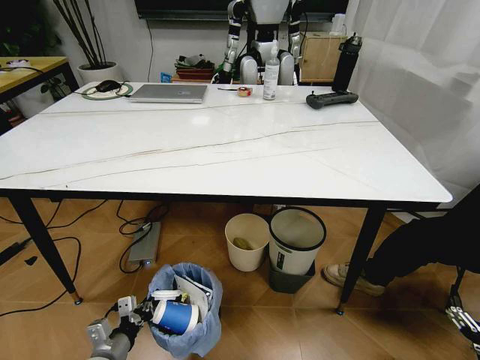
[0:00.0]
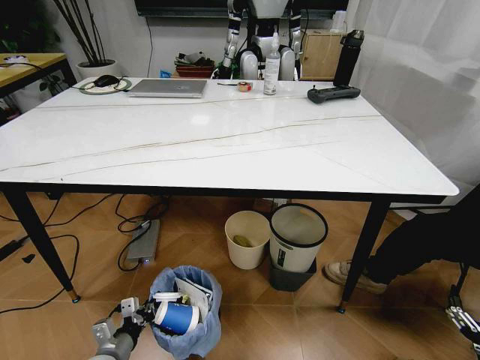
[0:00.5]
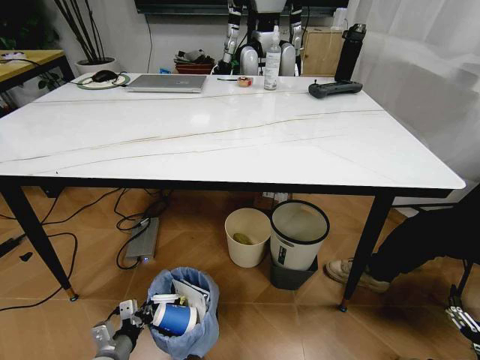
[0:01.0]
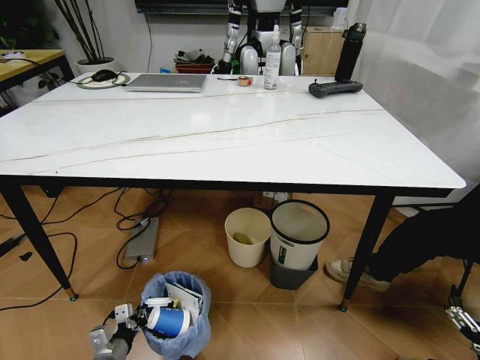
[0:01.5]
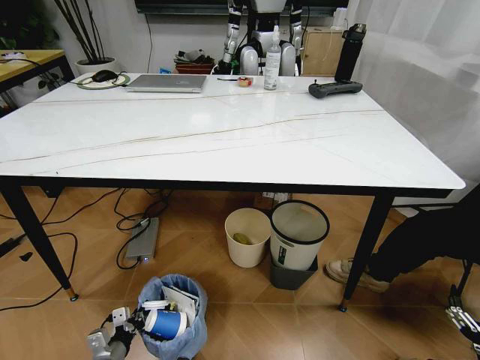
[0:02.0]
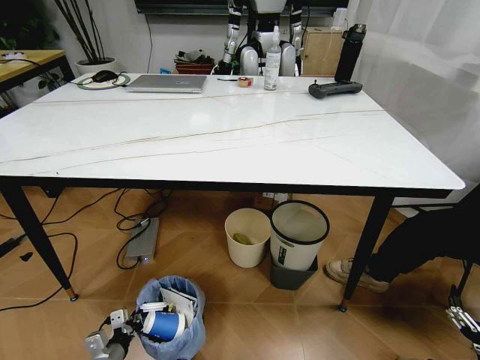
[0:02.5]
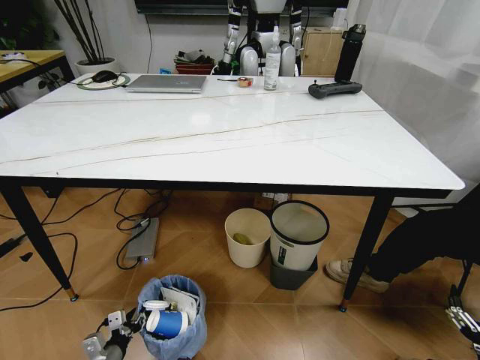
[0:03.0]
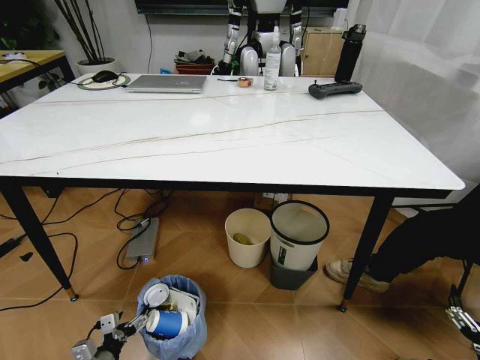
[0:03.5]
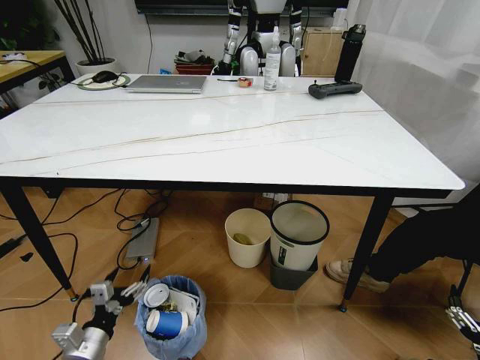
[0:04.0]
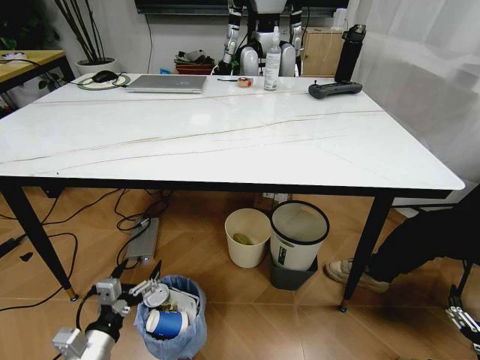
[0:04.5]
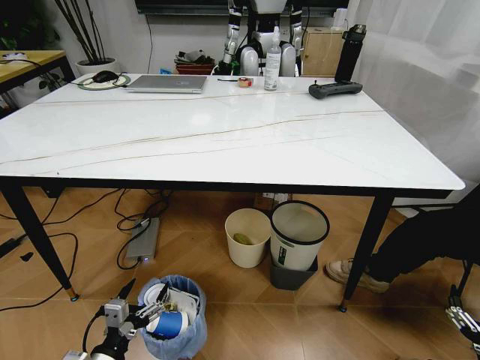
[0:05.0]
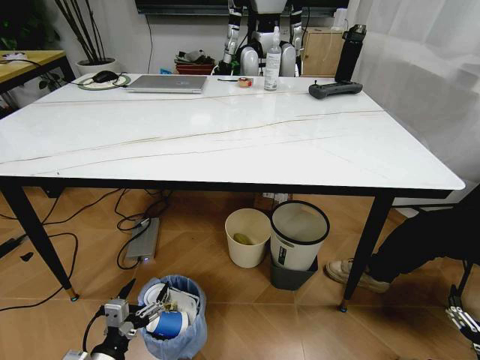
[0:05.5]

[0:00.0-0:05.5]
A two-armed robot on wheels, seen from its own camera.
Task of the whole recording: Pick up the trash bin and place the trash from the table into it.
0:00.0 to 0:02.0: The left gripper travels downward by some 10 cm.
0:02.0 to 0:03.5: The left gripper opens its fingers.
0:03.5 to 0:05.5: The left gripper heads upward and to the right, covering some 15 cm.

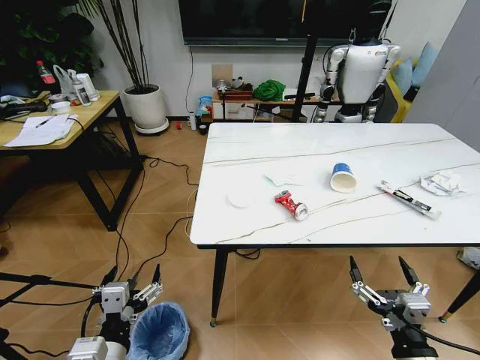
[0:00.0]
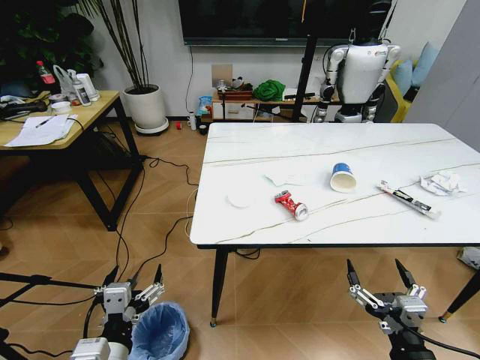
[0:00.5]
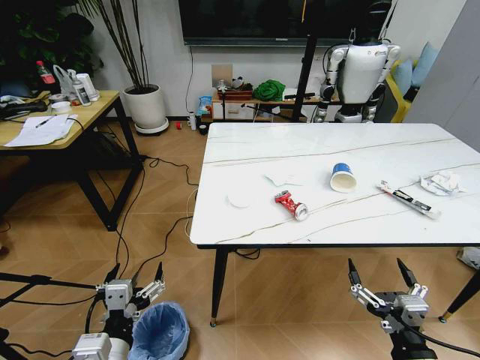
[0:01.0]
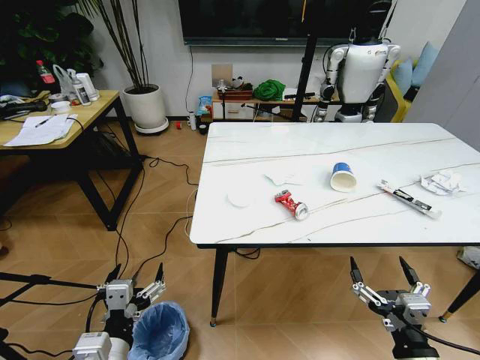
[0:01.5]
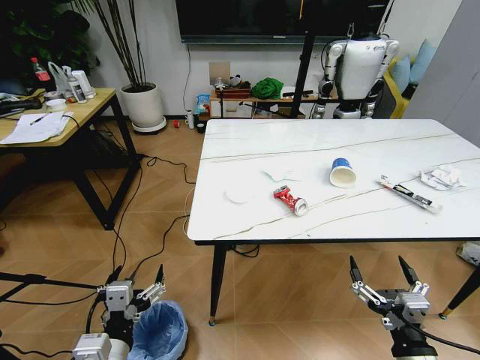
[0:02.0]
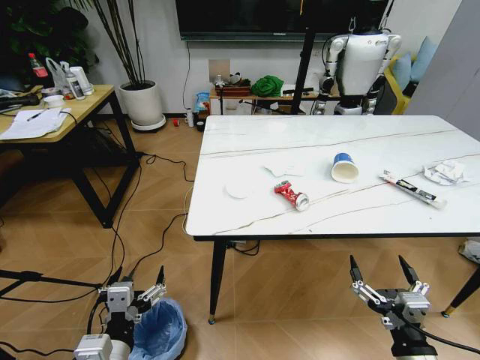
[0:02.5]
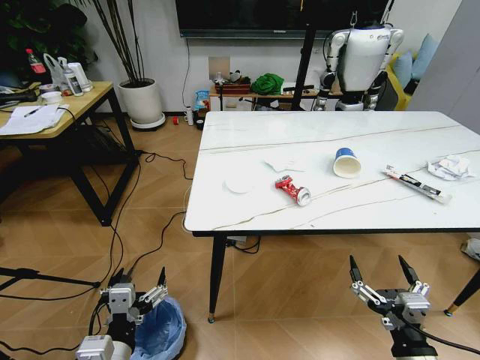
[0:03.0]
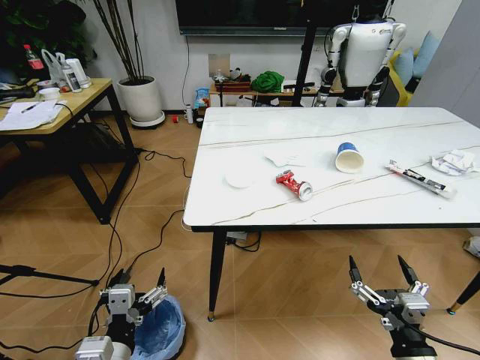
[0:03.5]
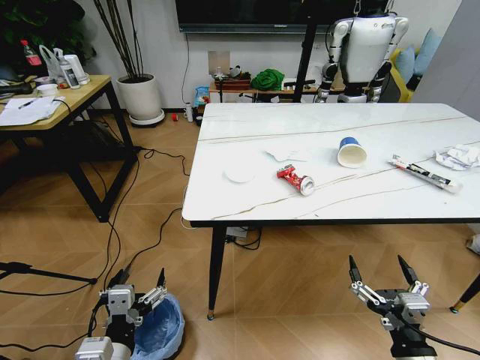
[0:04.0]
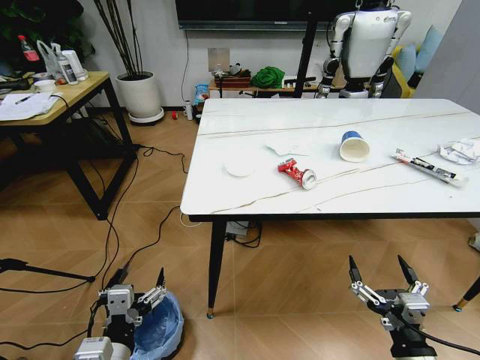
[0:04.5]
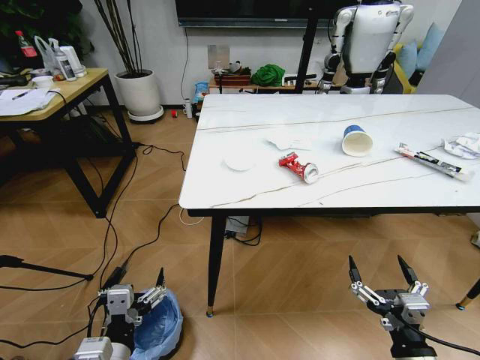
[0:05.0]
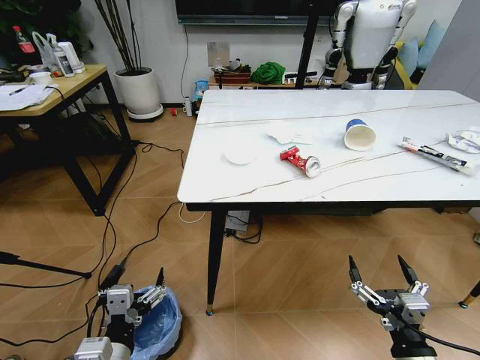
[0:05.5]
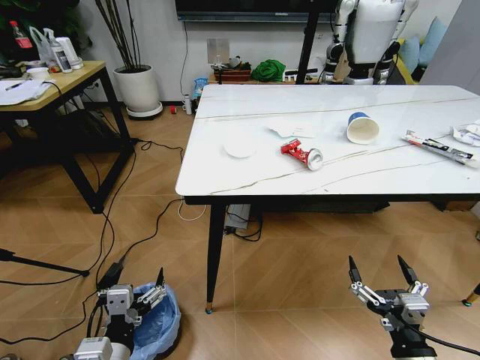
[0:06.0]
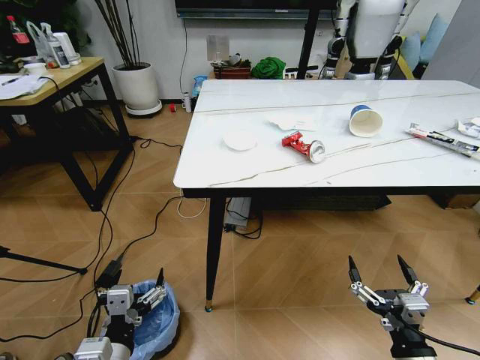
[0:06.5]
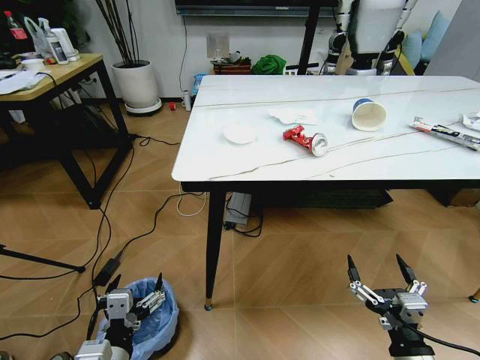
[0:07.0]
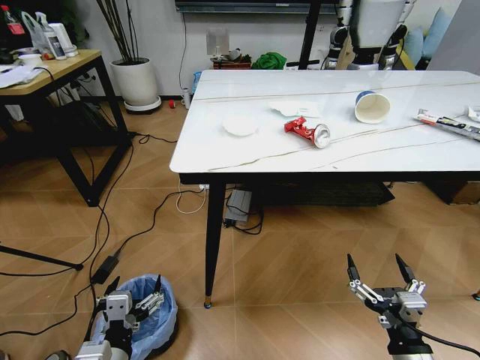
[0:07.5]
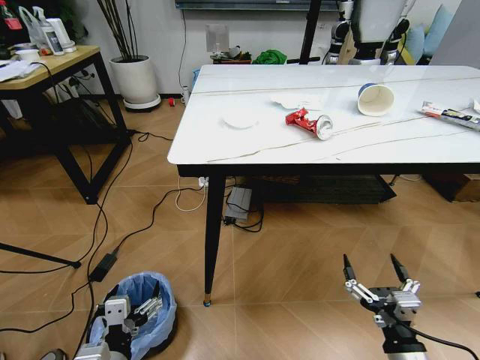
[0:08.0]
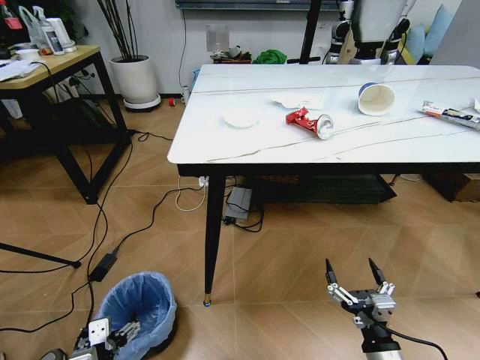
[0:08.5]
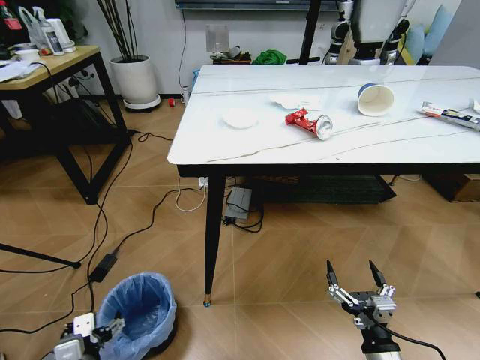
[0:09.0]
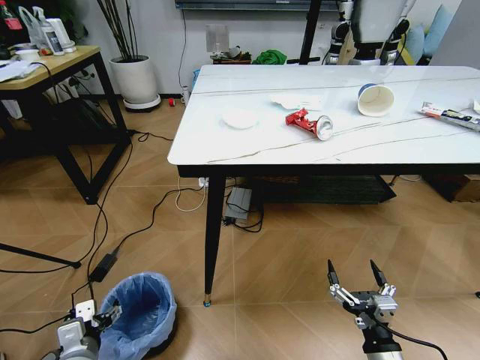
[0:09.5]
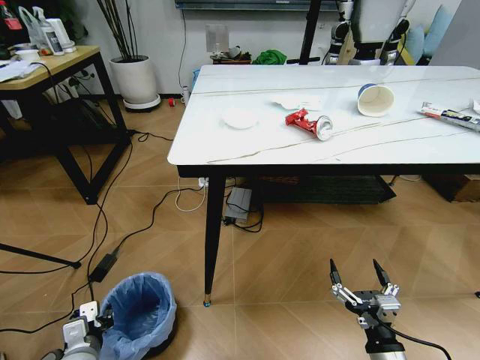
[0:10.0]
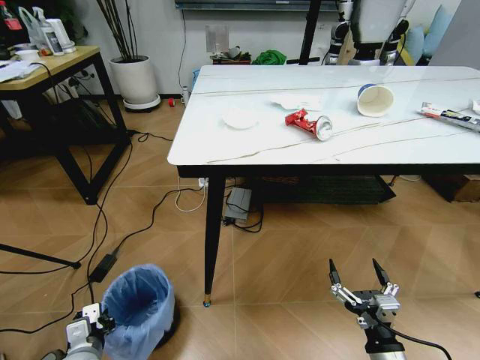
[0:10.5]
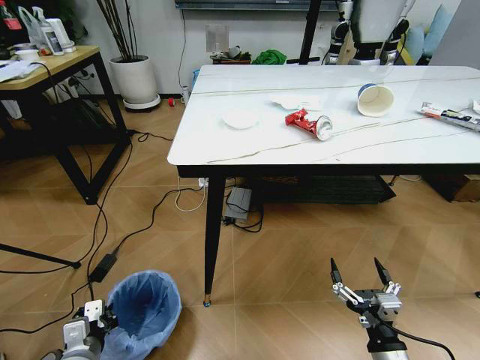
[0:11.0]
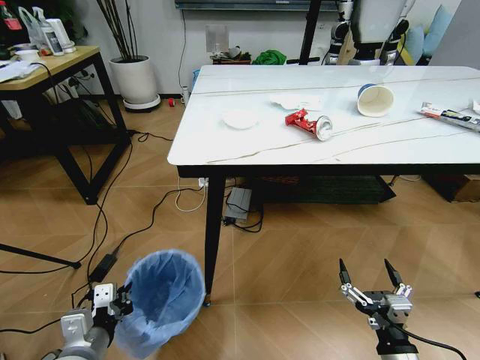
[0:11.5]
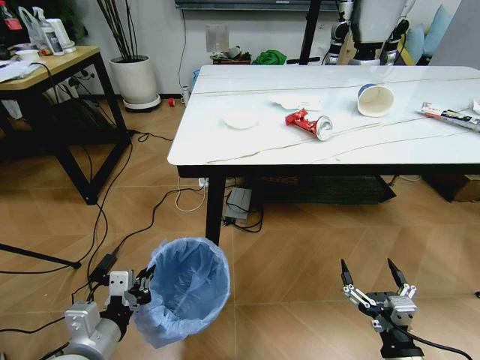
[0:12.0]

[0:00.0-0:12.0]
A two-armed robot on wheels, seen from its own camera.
Task of the whole recording: Pick up the trash bin and place the trash from the table into it.
0:08.0 to 0:10.0: The left gripper heads to the left, downward and forward, covering about 15 cm, and closes.
0:10.0 to 0:12.0: The left gripper moves upward and to the right, roughly 15 cm.

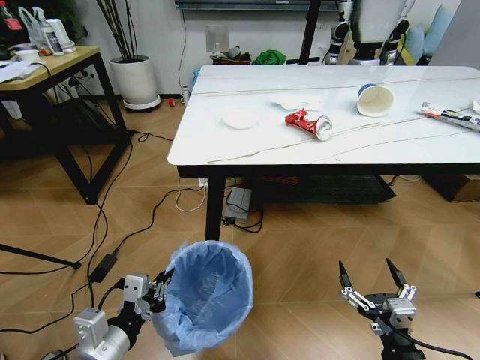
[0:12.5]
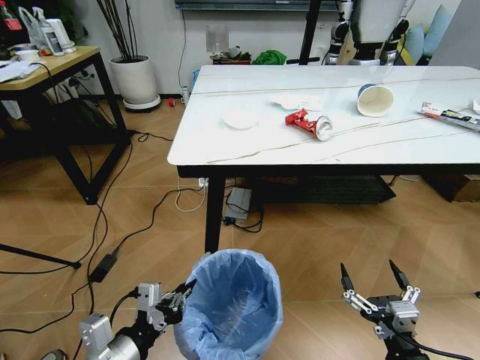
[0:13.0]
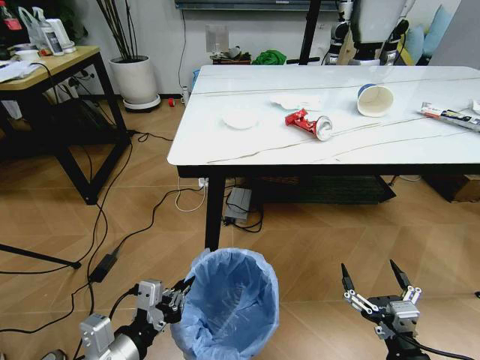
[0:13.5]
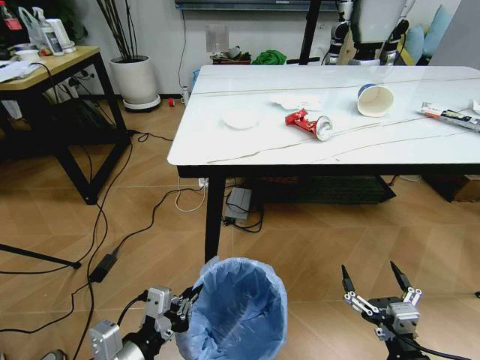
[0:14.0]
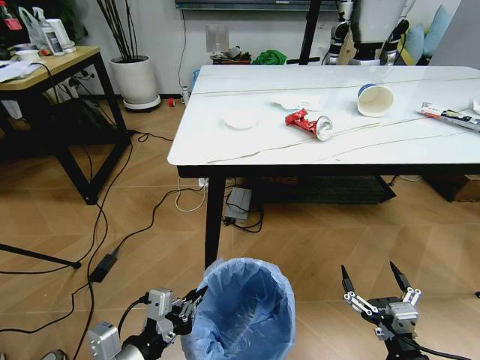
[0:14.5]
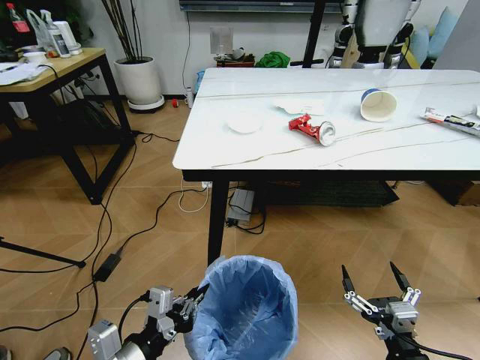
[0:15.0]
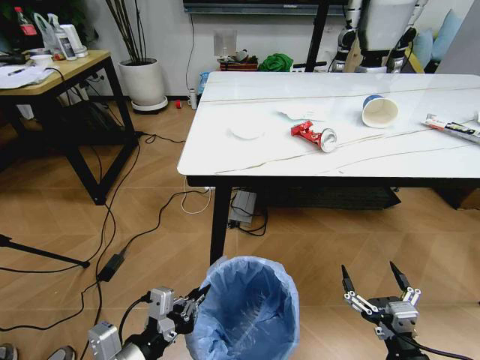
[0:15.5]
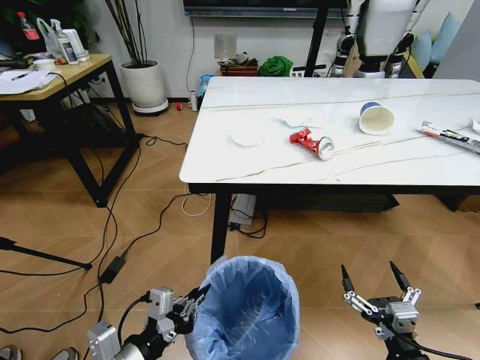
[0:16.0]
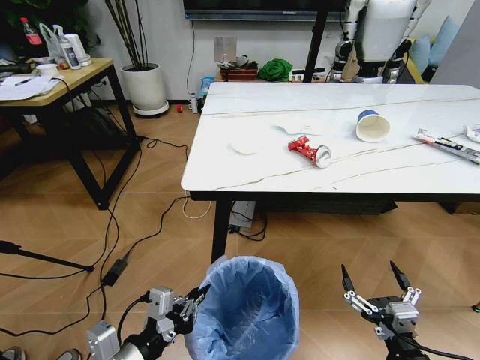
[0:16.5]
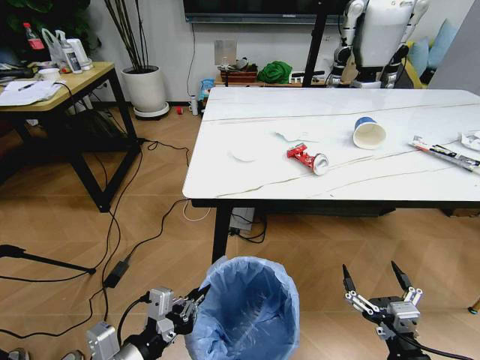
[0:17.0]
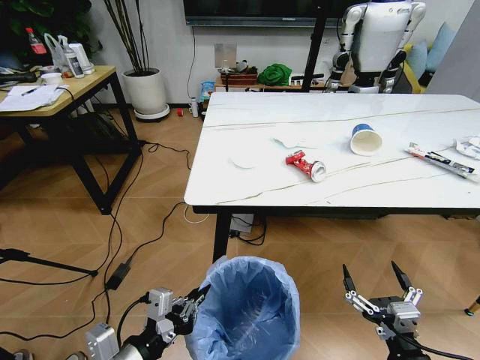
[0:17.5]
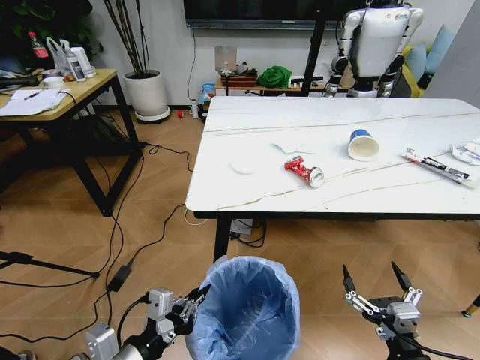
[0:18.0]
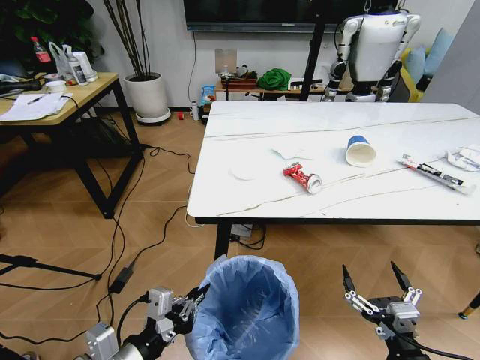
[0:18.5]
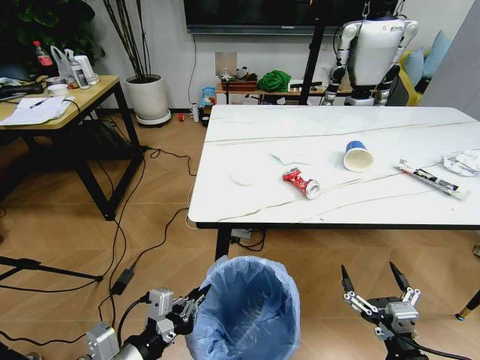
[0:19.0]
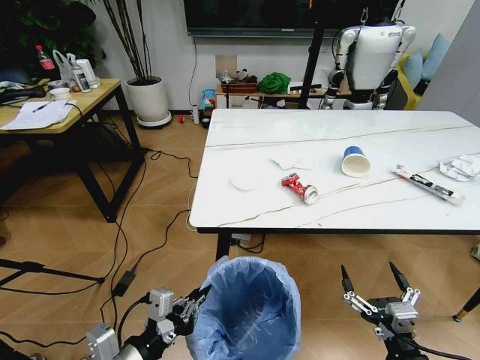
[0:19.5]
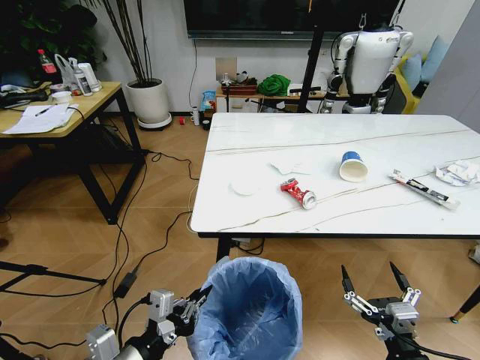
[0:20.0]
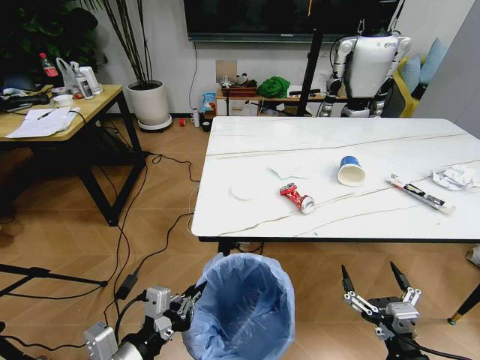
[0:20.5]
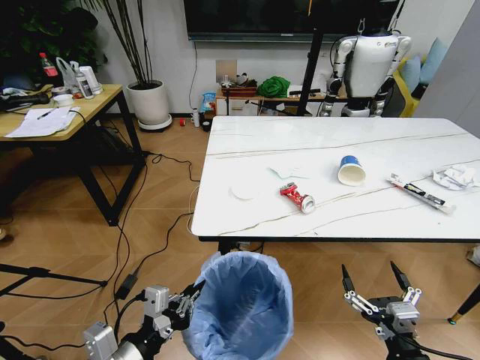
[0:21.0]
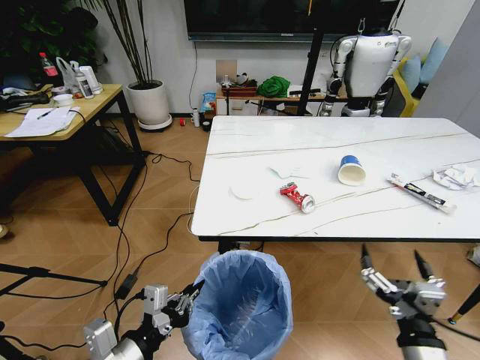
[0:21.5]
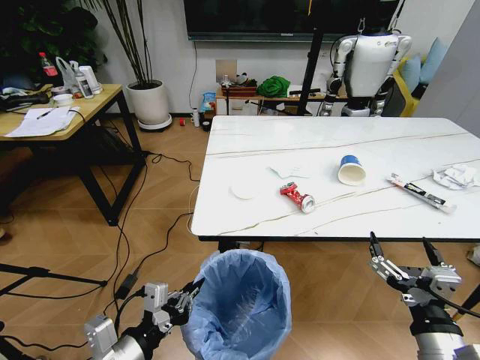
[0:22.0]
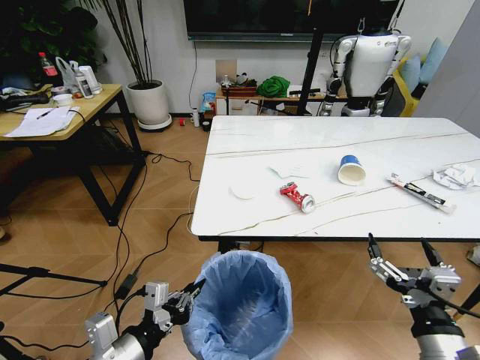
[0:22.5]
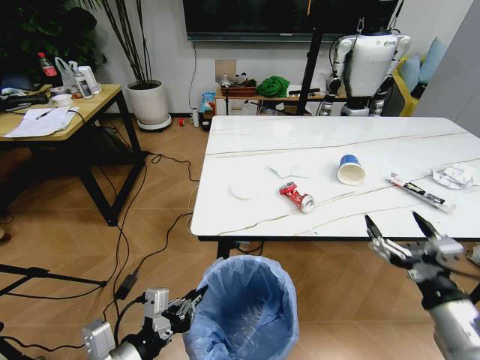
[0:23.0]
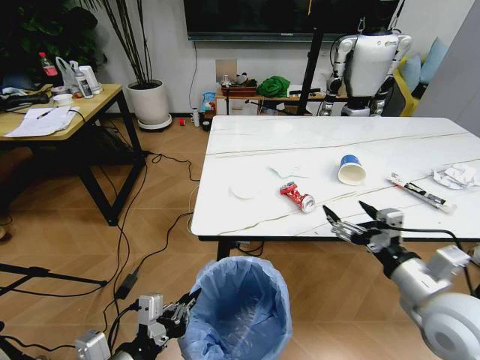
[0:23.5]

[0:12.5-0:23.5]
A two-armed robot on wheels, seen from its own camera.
Task of the whole recording: Pick up the trash bin and place the trash from the table into it.
0:12.5 to 0:14.5: The grippers move only a little.
0:21.5 to 0:23.5: The right gripper goes about 15 cm forward and upward.
